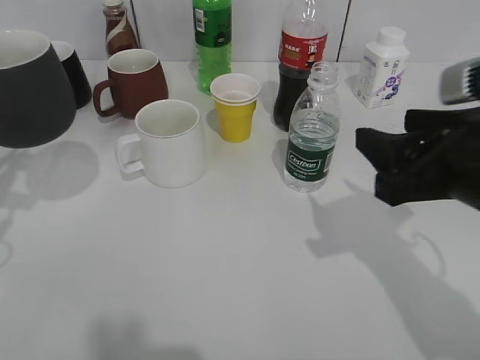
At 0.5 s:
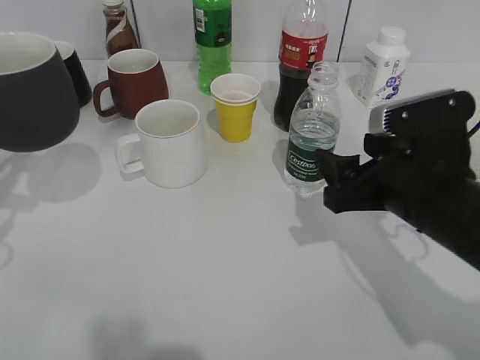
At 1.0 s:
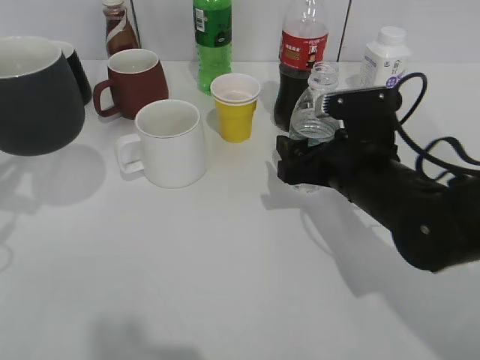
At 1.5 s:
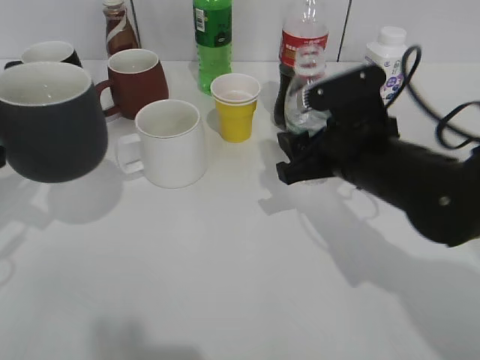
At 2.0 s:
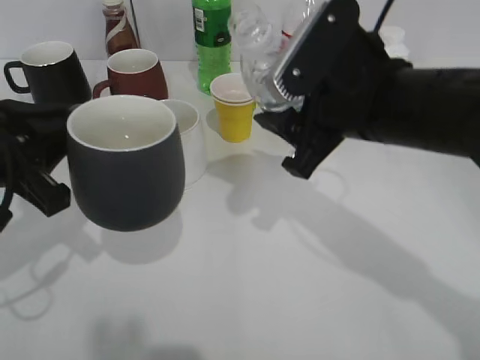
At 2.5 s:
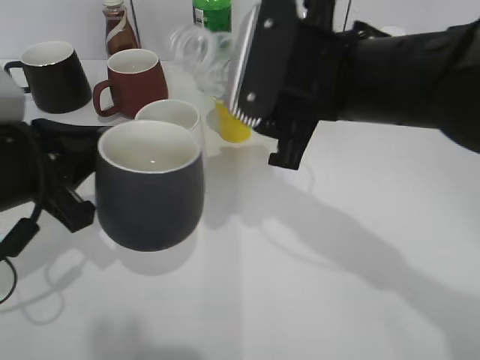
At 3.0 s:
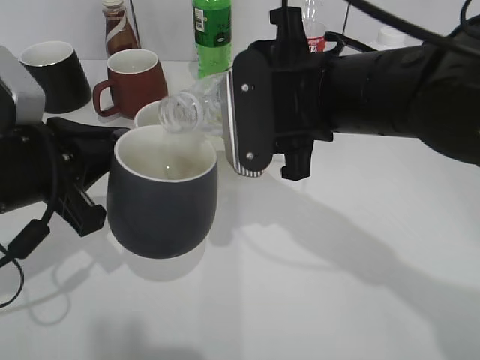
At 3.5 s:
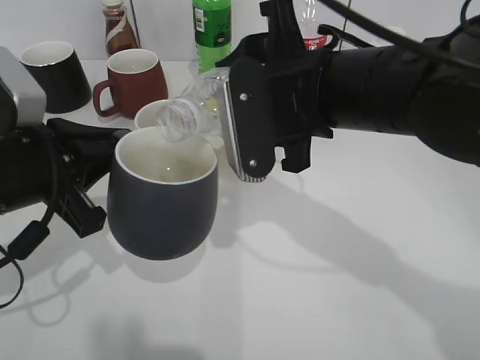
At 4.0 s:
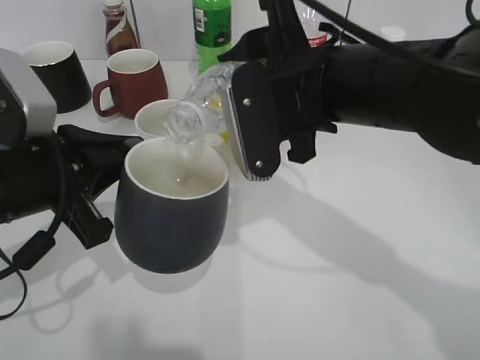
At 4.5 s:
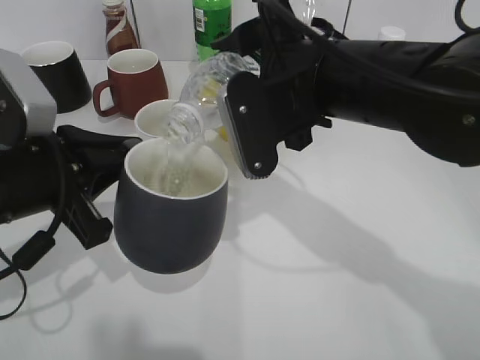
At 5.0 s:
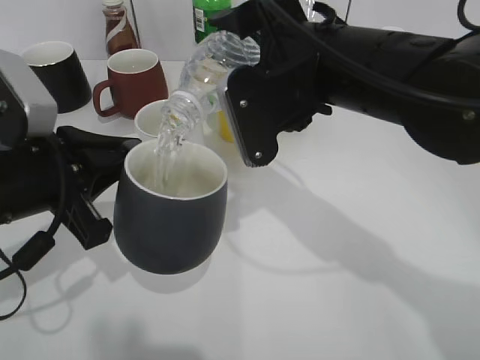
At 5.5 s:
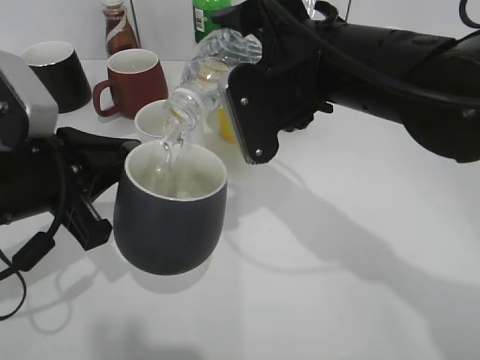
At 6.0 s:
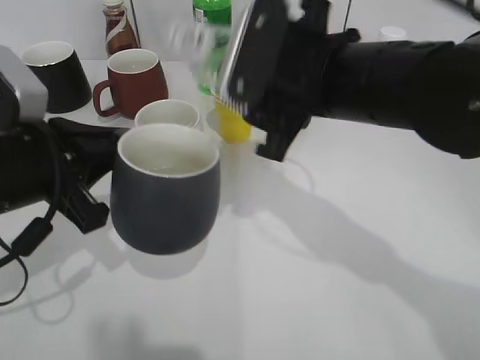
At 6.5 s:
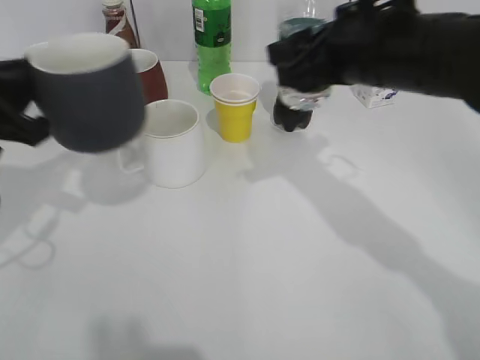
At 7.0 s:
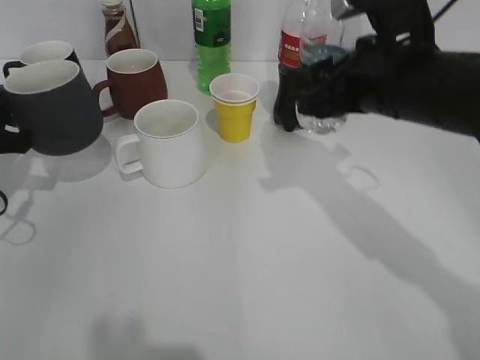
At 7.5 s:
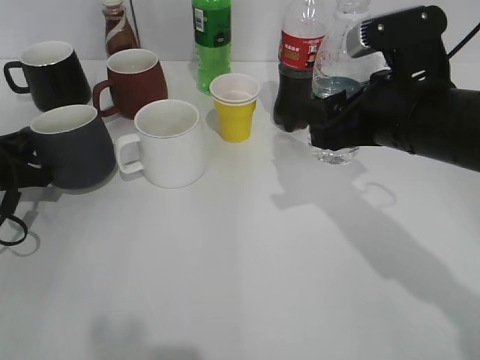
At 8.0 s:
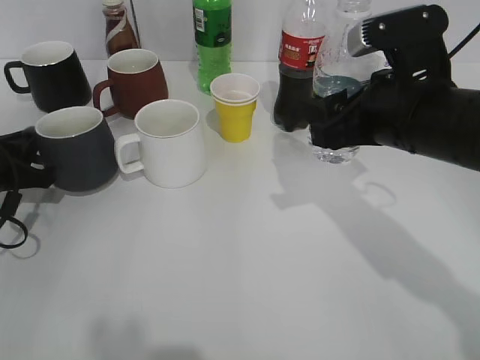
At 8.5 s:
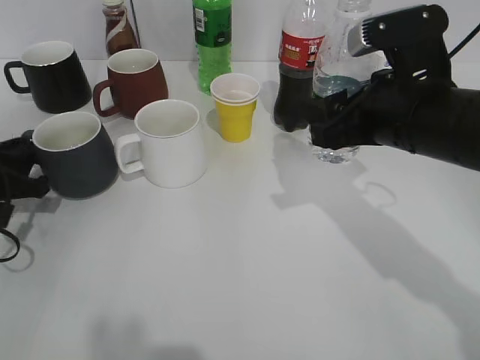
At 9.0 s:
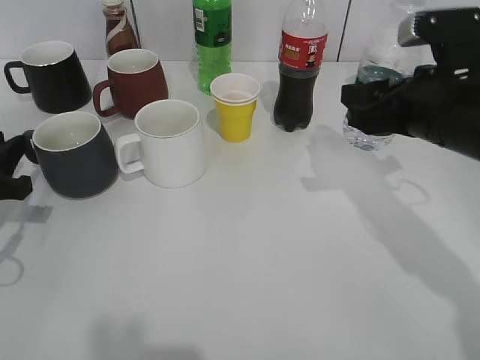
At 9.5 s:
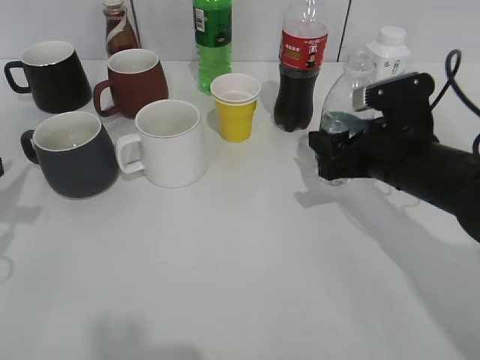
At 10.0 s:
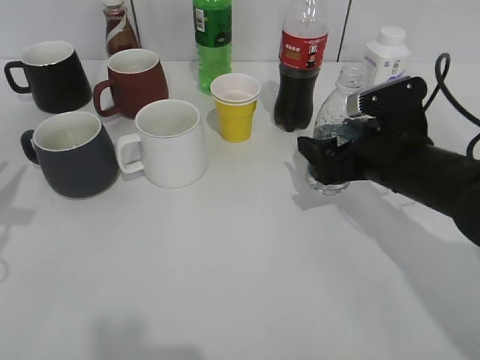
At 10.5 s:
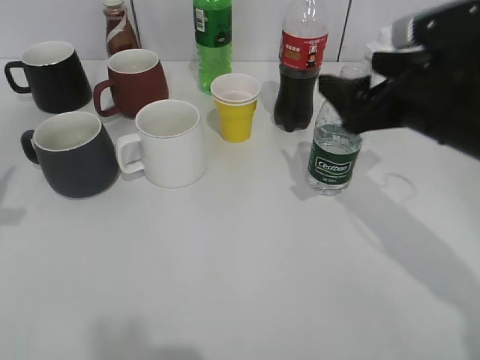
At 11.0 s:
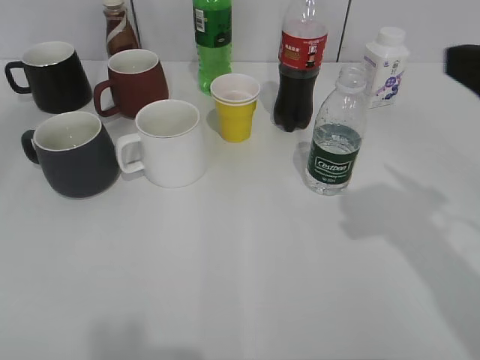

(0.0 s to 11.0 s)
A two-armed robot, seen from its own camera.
Step, 0.0 s - 1.0 s: Grasp the bottle with water with right gripper.
Step, 1.5 s - 6.0 s: Pour the water from bottle to cup with right gripper.
Step, 6.5 s - 8.5 s: Place the black cup on the table with left gripper.
Step, 9.5 s - 10.0 s: Place the water bottle on the table with right gripper.
0.0 s - 2.0 s: The left gripper goes approximately 10 cm to the right; the right gripper shifts about 10 cm to the left and forward, goes downward and returns, some 10 cm each way, and opens and closes again.
5.5 s - 7.5 s: The left gripper goes roughly 20 cm to the left, downward and forward. The right gripper heads to the right, covering some 10 cm.
7.5 s - 9.0 s: The left gripper changes place by approximately 5 cm, and opens its fingers.
9.0 s - 11.0 s: The right gripper goes approximately 15 cm upward and backward, and opens its fingers. The left gripper travels upward and backward by approximately 20 cm, and opens up.

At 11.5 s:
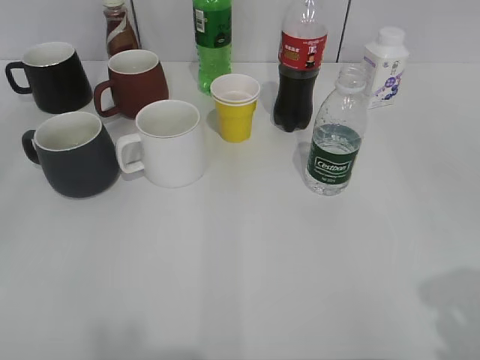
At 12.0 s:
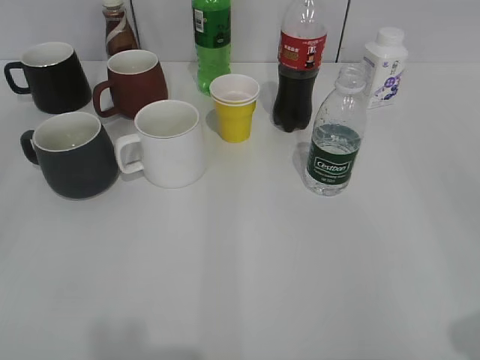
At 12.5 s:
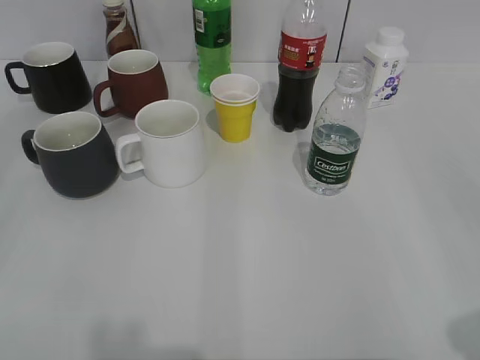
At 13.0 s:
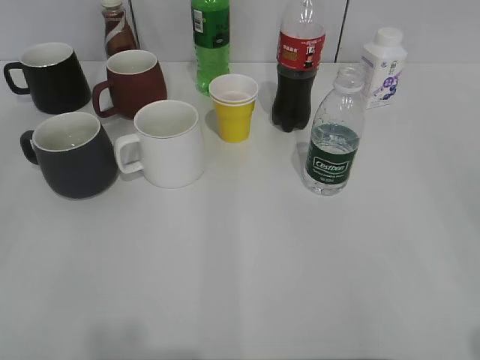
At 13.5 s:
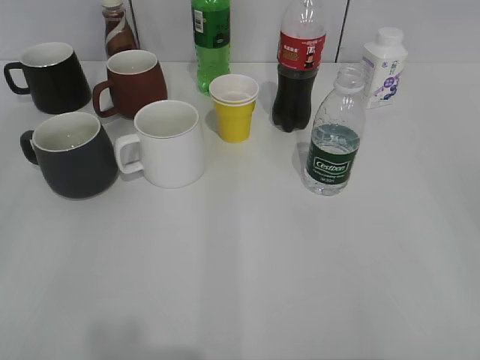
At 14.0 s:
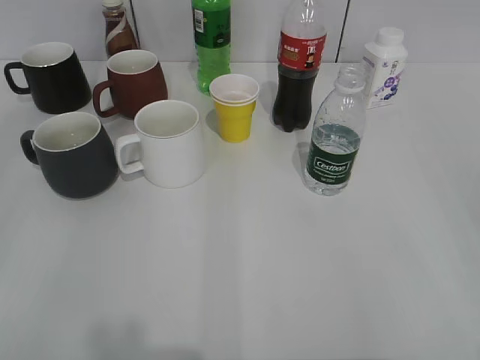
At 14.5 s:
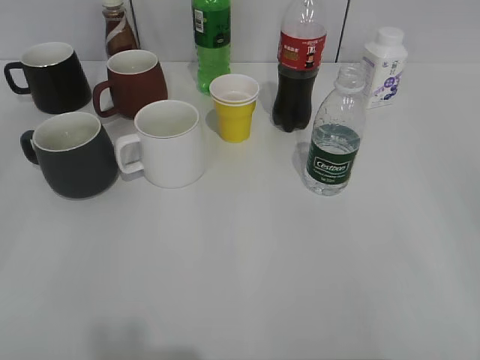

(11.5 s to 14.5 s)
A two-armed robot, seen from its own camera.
11.5 s - 13.0 s: The right gripper changes place by approximately 5 cm.
